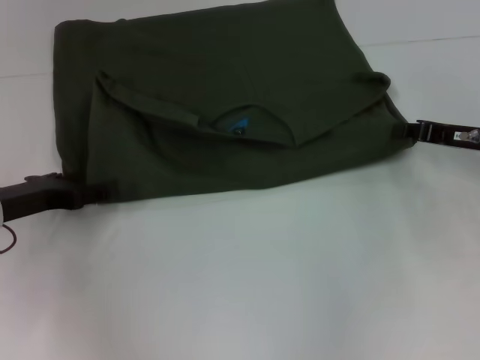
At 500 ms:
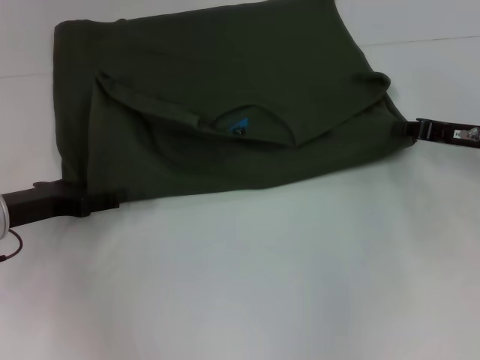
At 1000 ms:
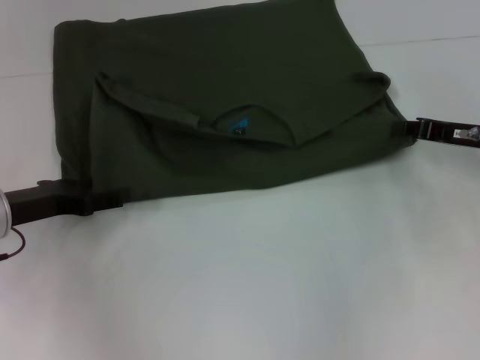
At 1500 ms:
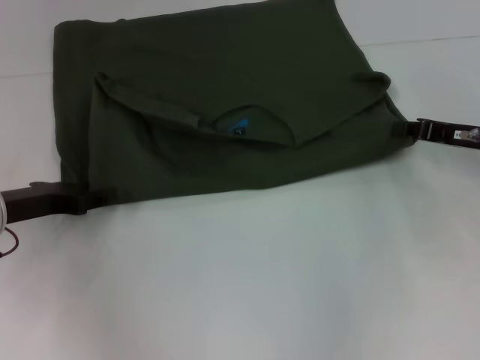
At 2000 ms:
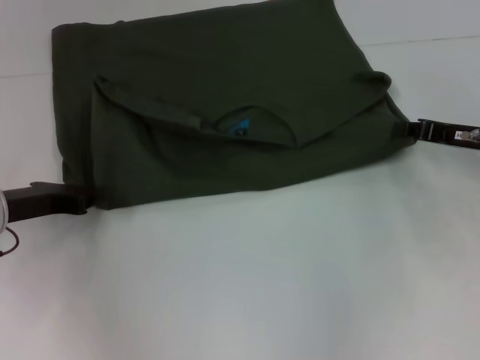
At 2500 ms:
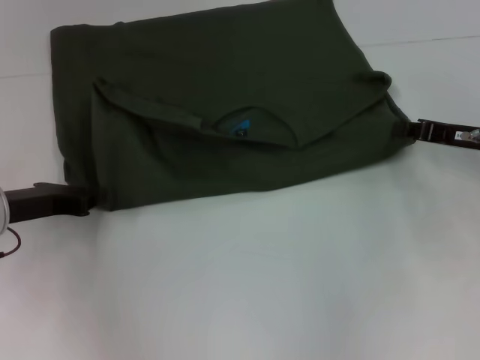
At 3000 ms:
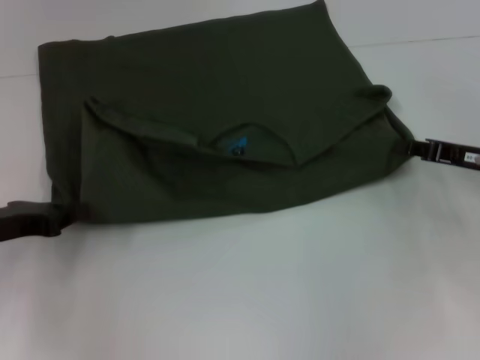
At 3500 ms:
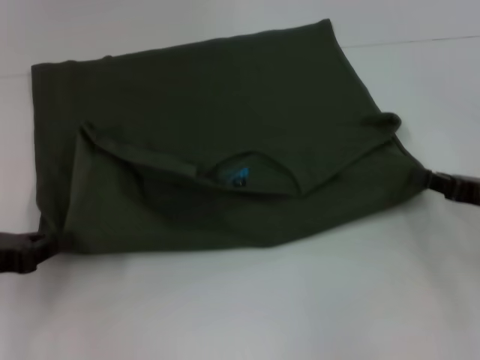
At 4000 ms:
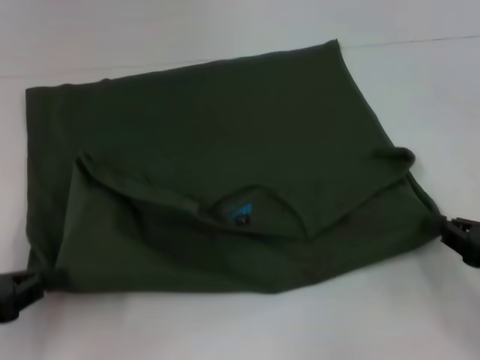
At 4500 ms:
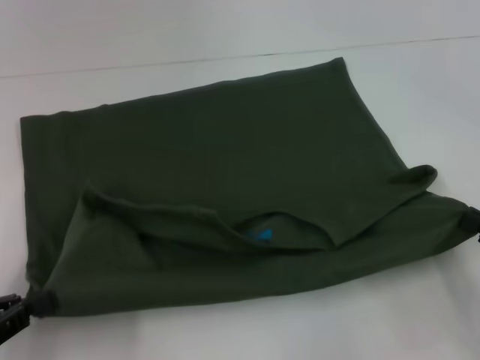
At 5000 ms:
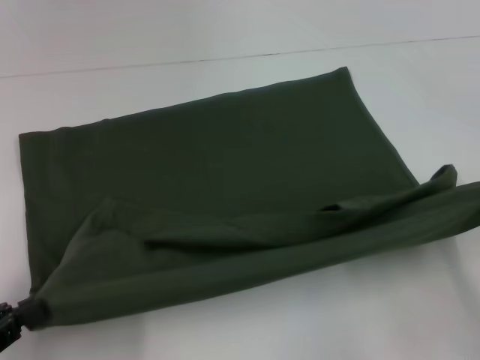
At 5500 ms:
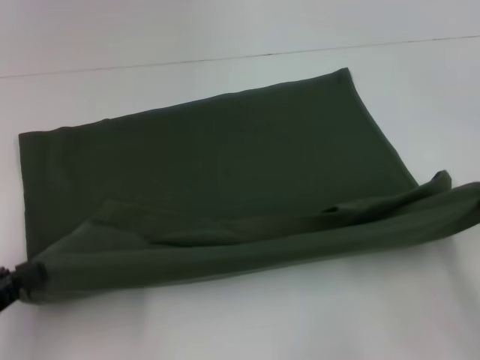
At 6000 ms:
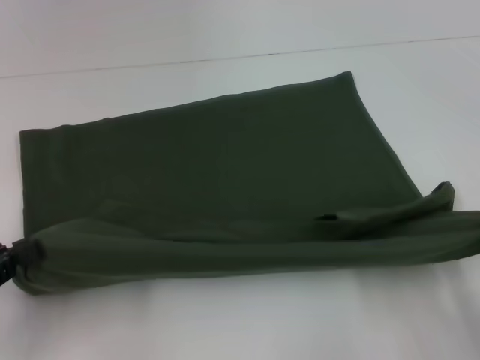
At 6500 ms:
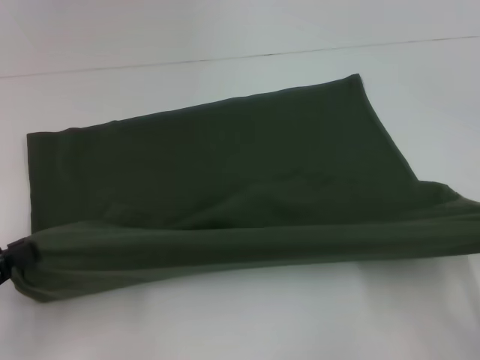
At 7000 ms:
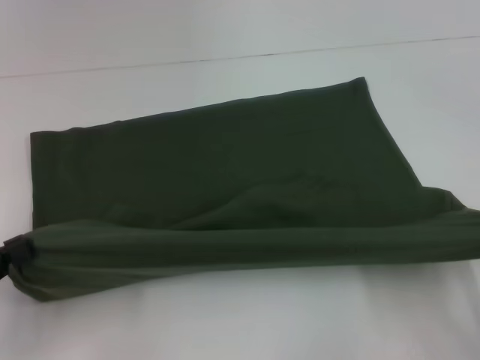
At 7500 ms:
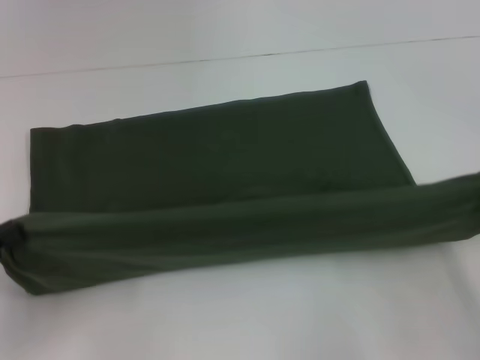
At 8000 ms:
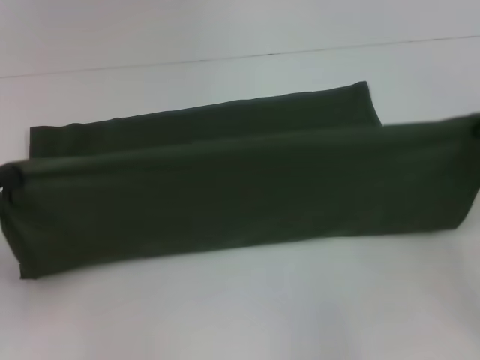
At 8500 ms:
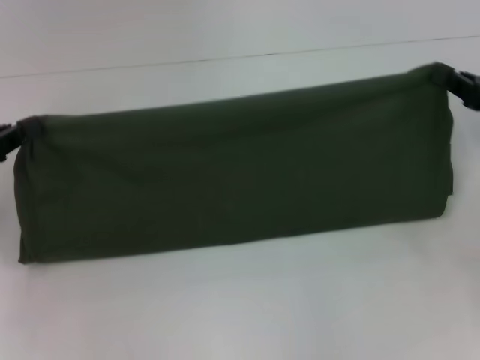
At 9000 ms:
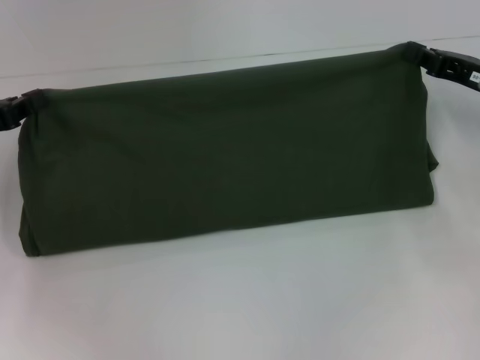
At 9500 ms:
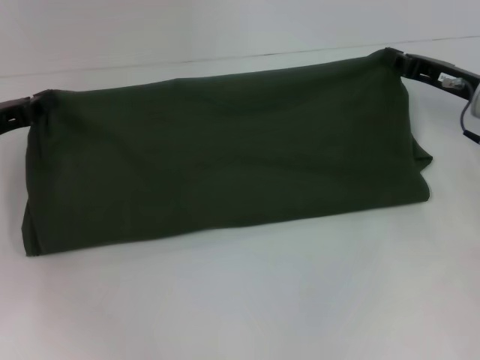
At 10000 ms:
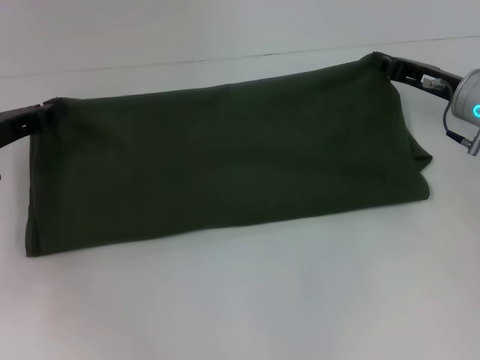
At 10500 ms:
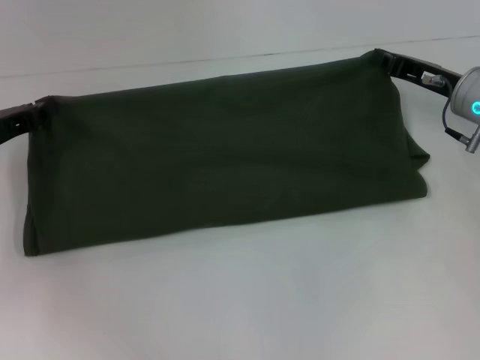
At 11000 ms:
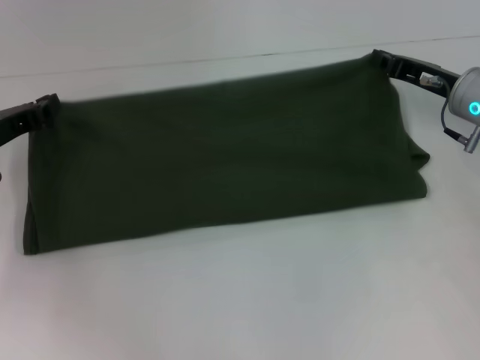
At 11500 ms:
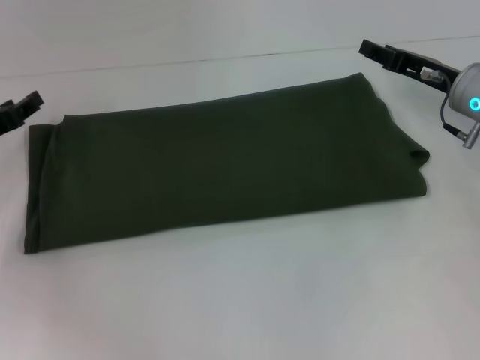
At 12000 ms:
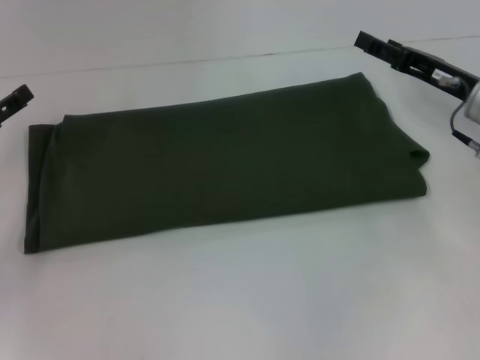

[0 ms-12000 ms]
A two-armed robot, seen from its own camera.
Step, 0 ms to 4000 ms: Pull the clothes with your left hand.
Step, 0 ms to 4000 ms: Pull the clothes with your right hand.
Step, 4500 ms to 11000 ms: Fold the clothes with your right hand.
0 ms to 2000 ms: The left gripper closes.
2000 ms to 4000 ms: The left gripper heads backward and to the left, covering some 15 cm, and closes. Meanwhile the right gripper shifts about 15 cm backward.
4000 ms to 6000 ms: The right gripper goes approximately 5 cm backward.
6000 ms to 8000 ms: The right gripper heads forward, covering approximately 10 cm. The left gripper shifts approximately 5 cm forward.
8000 ms to 10000 ms: The right gripper travels forward and to the left by some 20 cm, while the left gripper is displaced forward and to the right by approximately 15 cm.
10000 ms to 12000 ms: The left gripper opens its fingers. Meanwhile the right gripper opens.

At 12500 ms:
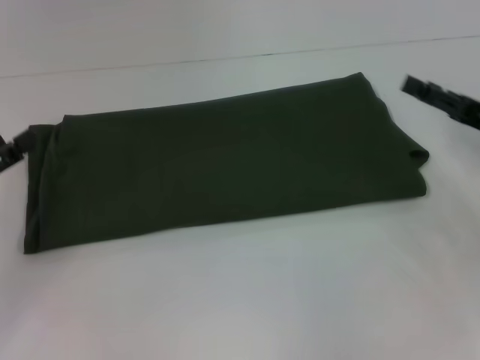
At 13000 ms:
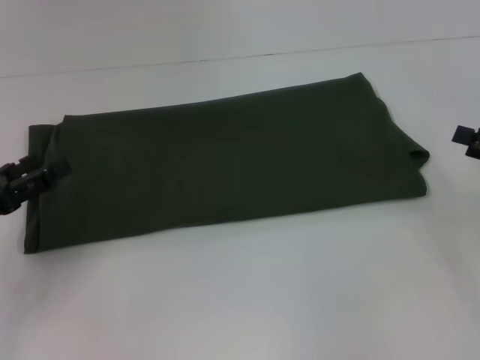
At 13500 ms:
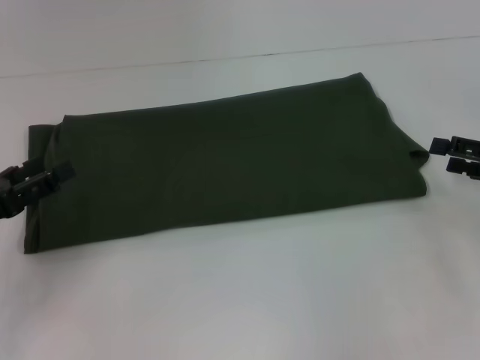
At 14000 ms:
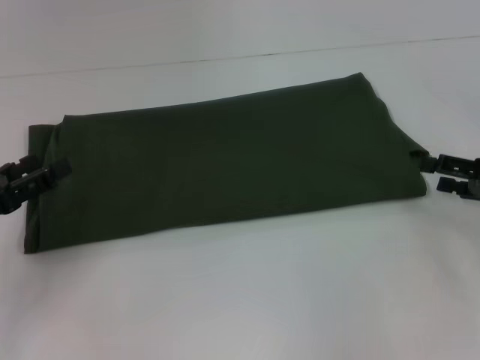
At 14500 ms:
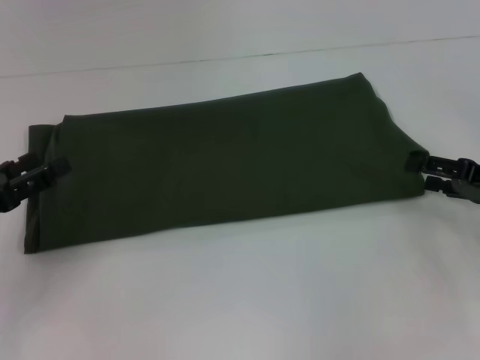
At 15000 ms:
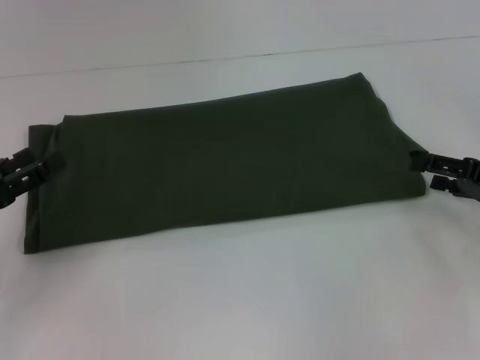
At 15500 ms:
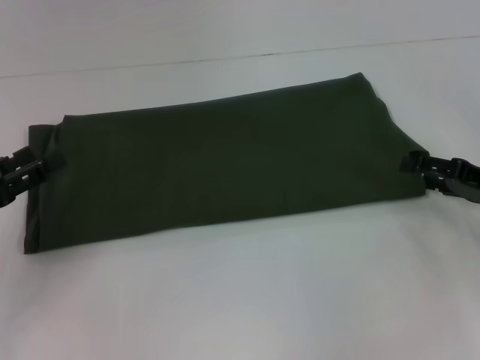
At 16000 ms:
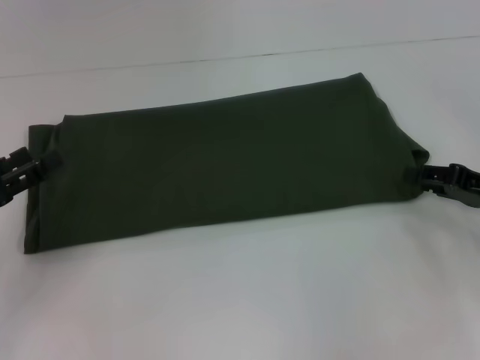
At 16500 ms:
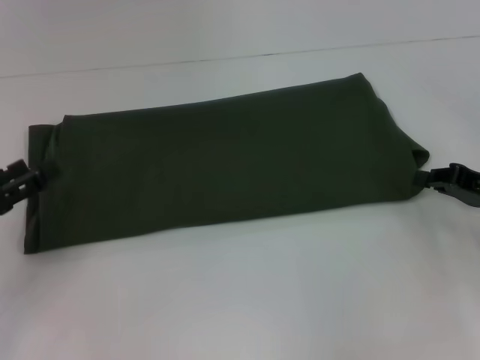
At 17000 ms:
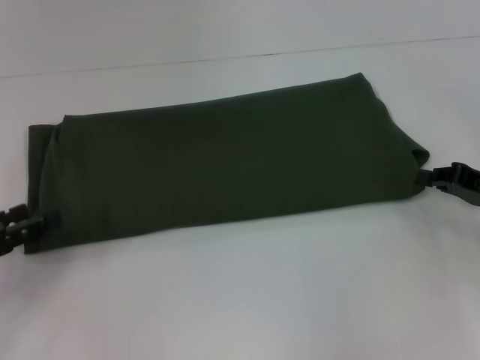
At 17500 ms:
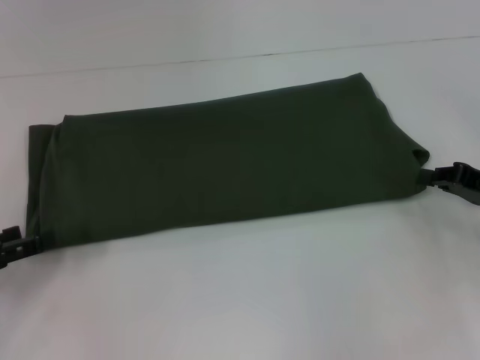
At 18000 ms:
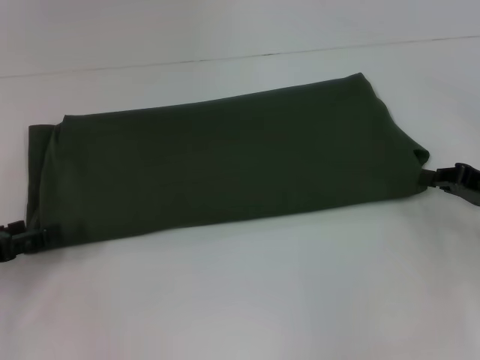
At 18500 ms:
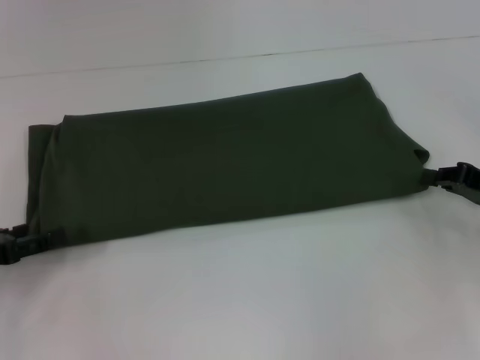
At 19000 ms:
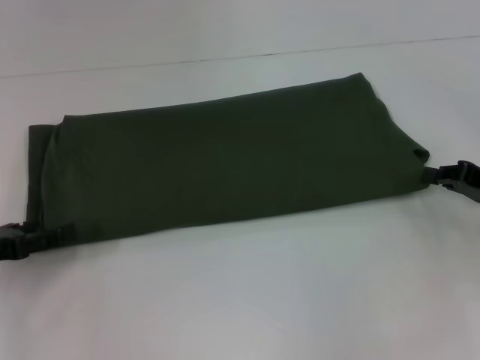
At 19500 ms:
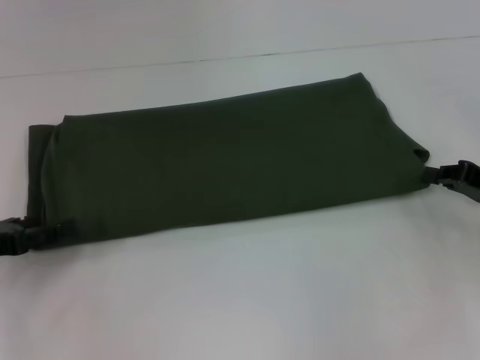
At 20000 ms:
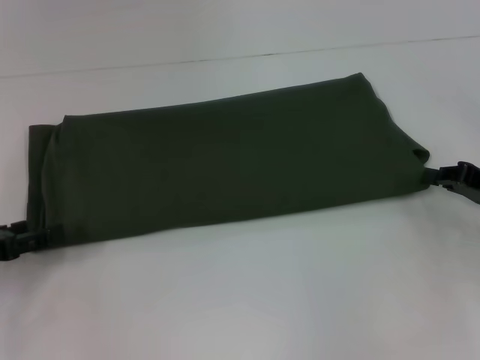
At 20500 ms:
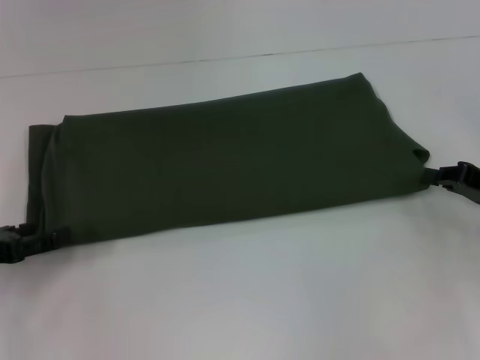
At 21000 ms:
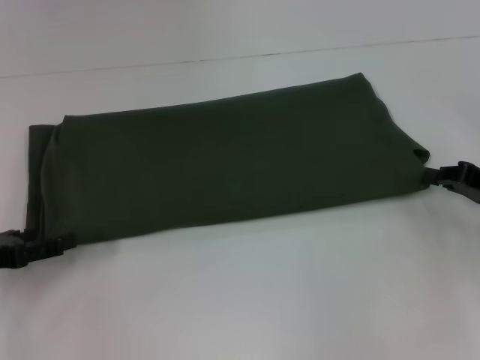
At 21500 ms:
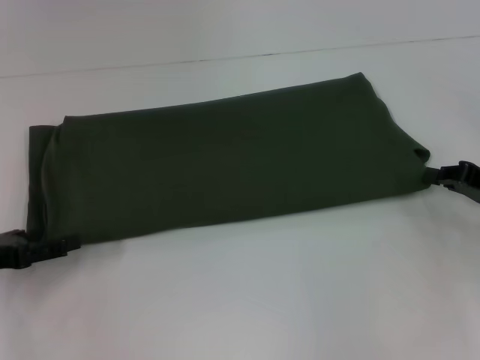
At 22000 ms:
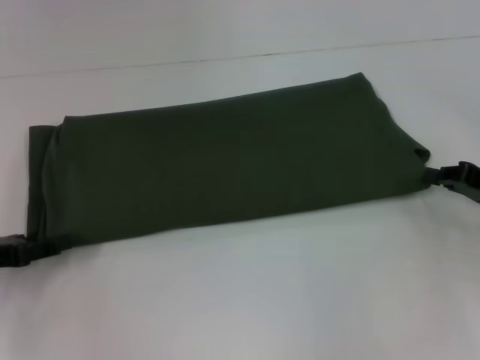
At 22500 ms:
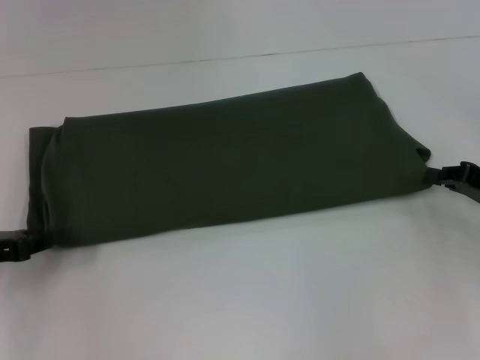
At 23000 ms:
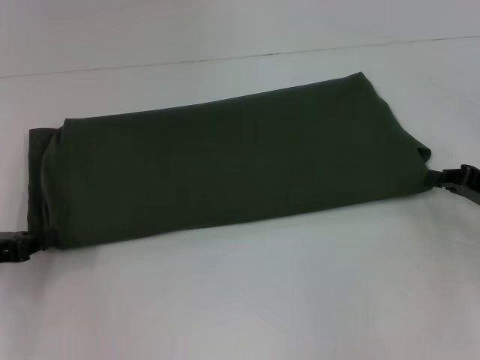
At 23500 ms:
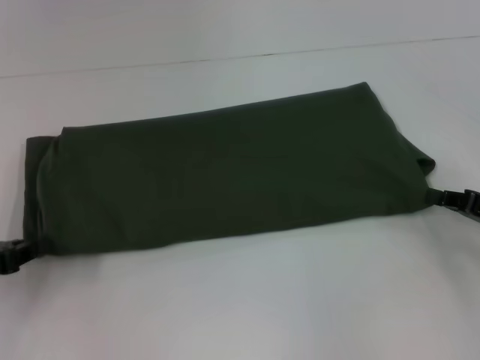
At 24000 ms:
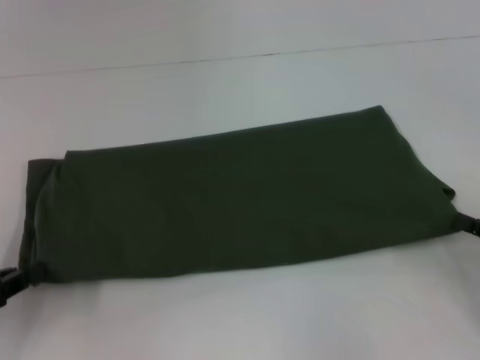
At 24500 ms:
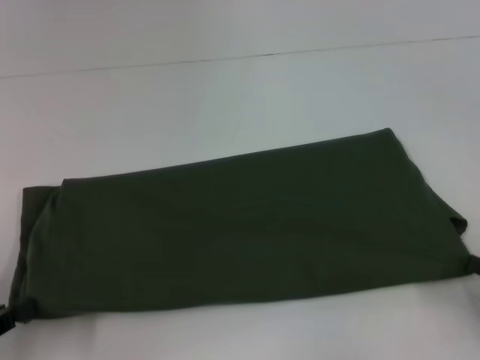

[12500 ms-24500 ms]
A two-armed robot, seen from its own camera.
14500 ms to 16500 ms: The right gripper closes up.
20500 ms to 22500 ms: The left gripper closes its fingers.
22500 ms to 24500 ms: Both grippers travel together backward, about 10 cm.

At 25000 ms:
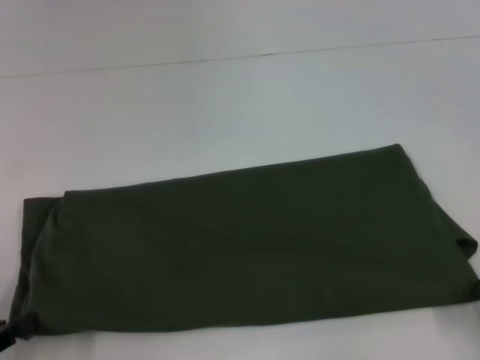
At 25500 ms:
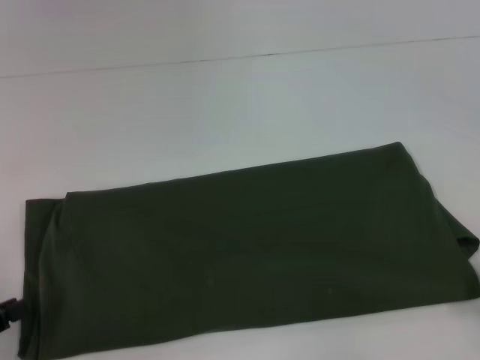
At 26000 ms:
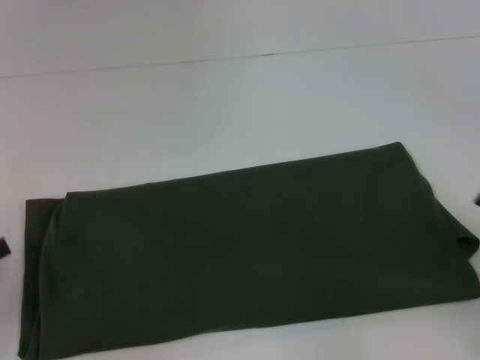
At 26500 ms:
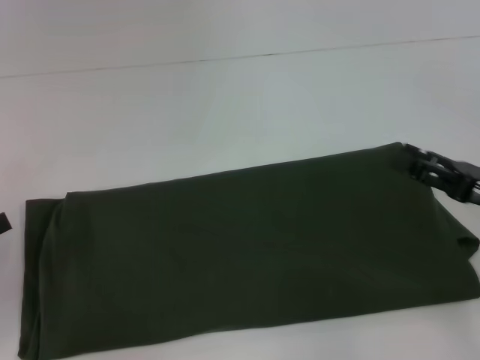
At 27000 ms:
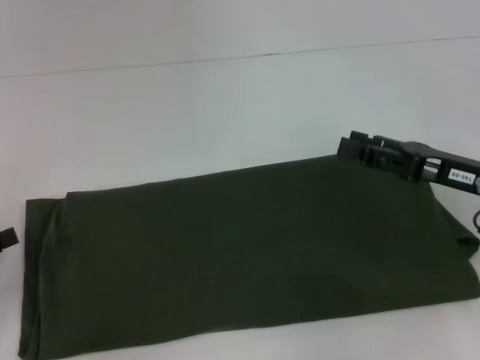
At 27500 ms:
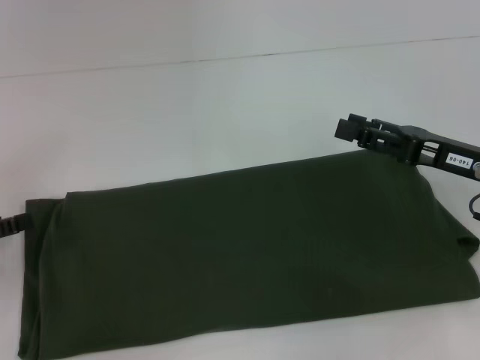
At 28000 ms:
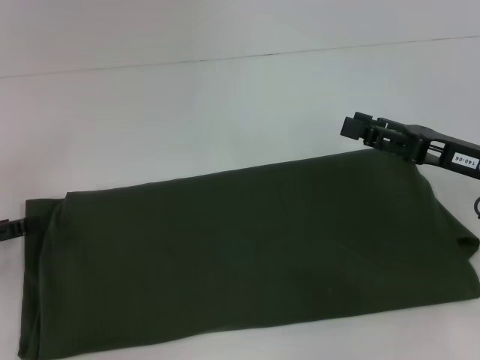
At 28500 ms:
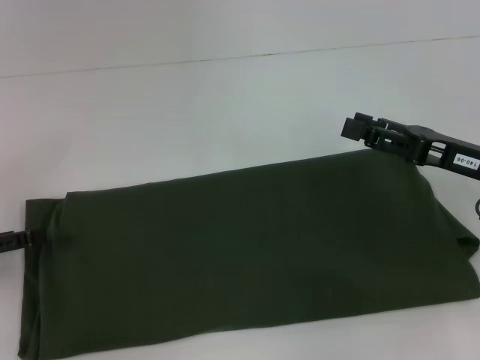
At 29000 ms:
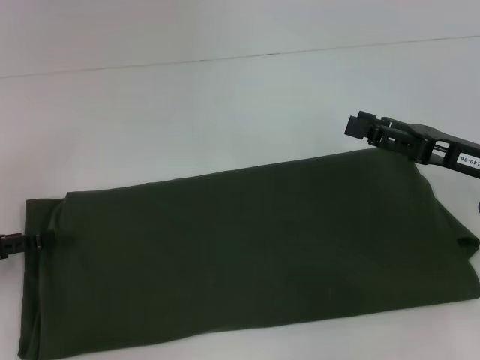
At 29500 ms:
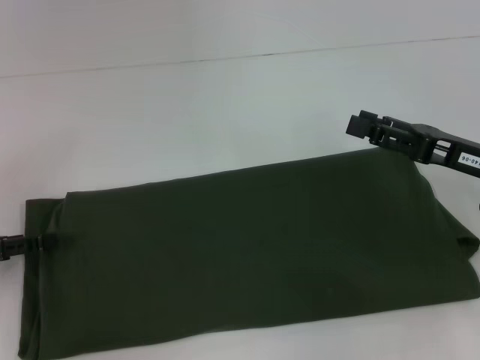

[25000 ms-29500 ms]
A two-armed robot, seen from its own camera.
25000 ms to 27000 ms: The left gripper moves forward, approximately 5 cm, and opens its fingers; the right gripper travels forward, to the left and upward by approximately 20 cm, and opens up.
